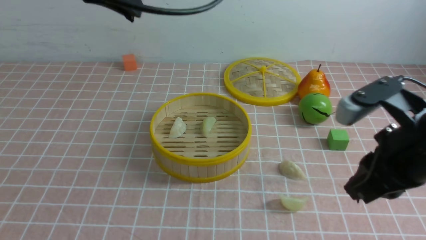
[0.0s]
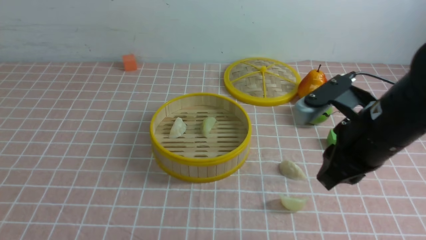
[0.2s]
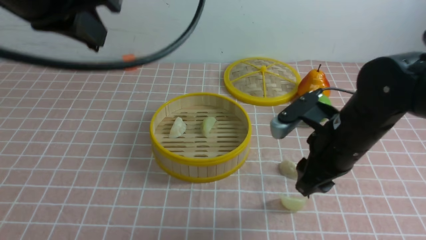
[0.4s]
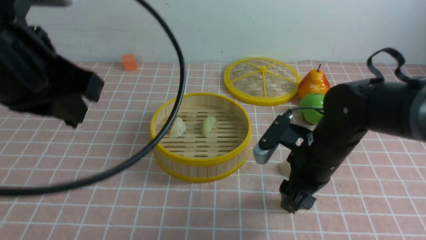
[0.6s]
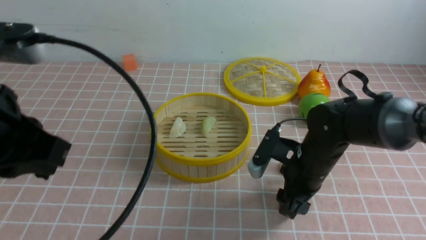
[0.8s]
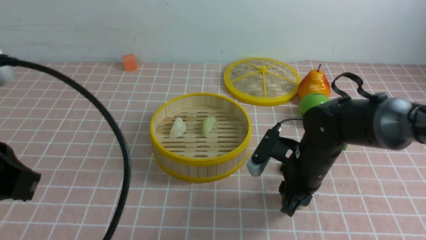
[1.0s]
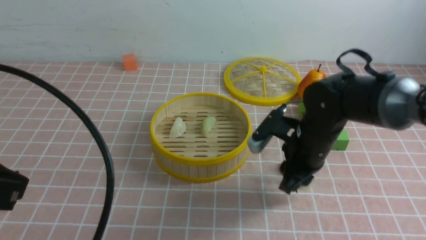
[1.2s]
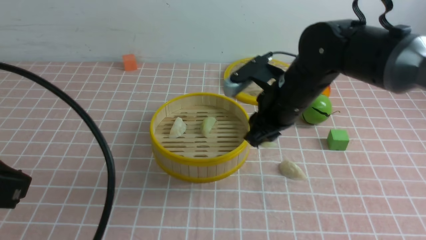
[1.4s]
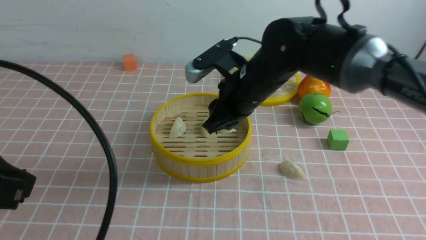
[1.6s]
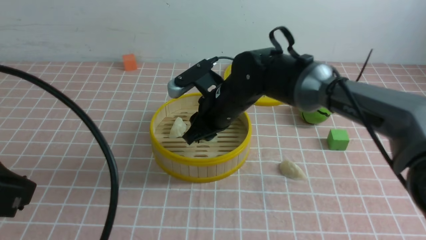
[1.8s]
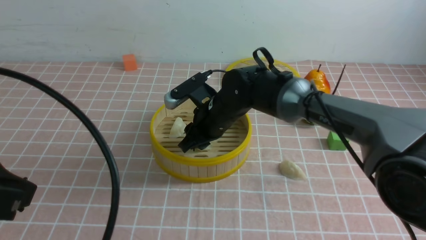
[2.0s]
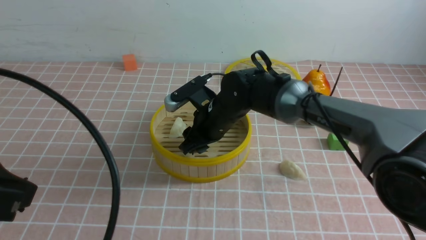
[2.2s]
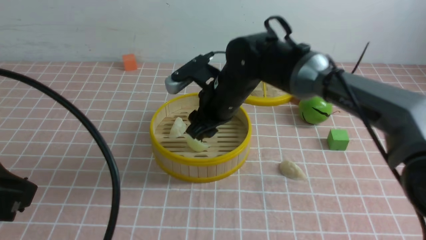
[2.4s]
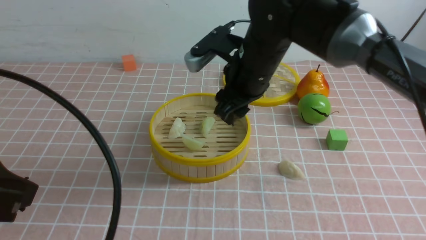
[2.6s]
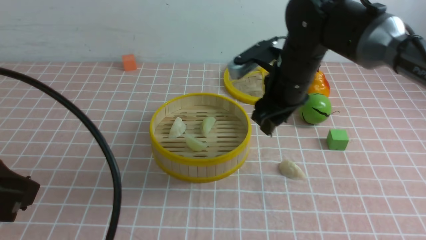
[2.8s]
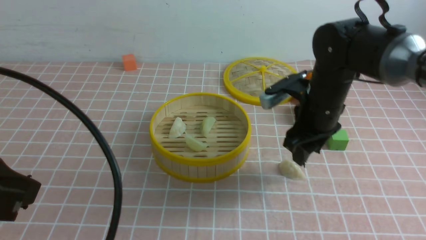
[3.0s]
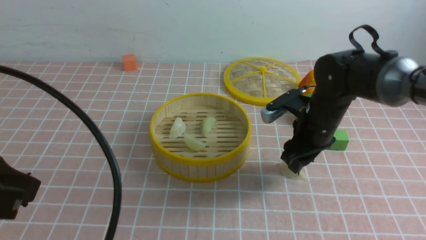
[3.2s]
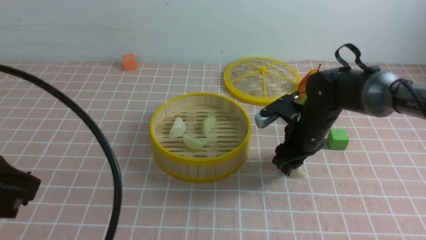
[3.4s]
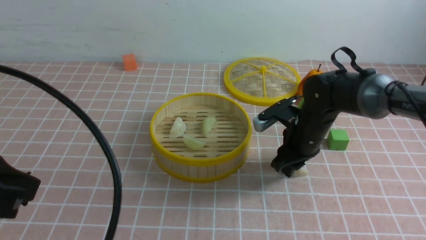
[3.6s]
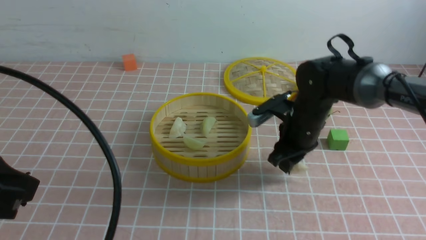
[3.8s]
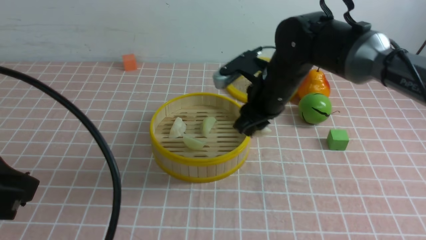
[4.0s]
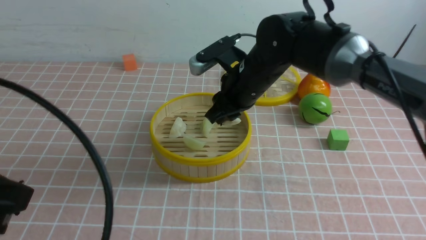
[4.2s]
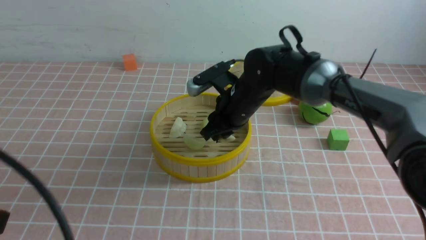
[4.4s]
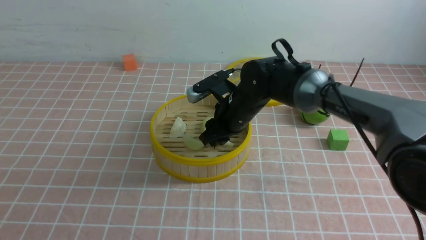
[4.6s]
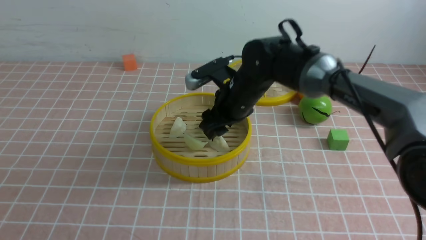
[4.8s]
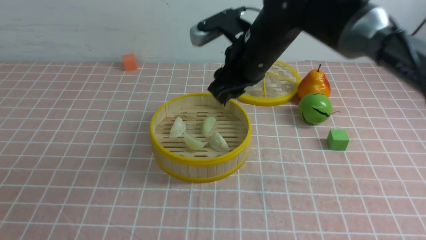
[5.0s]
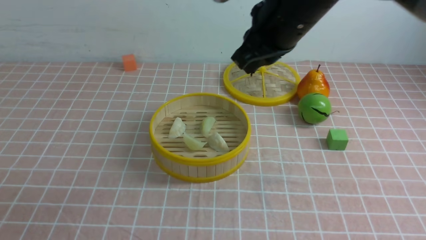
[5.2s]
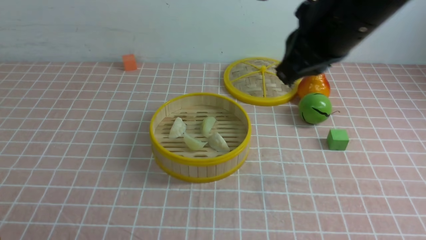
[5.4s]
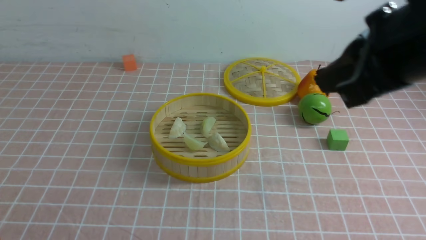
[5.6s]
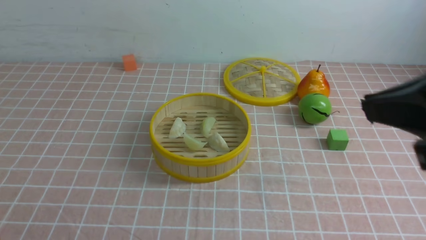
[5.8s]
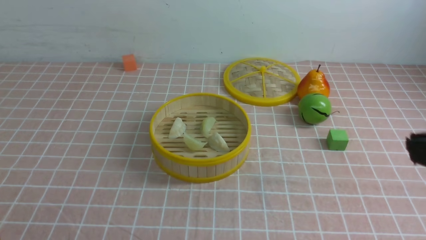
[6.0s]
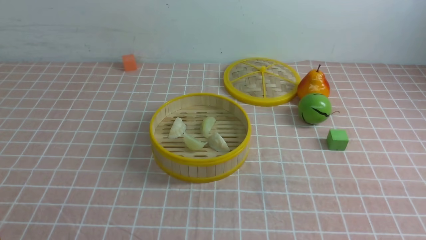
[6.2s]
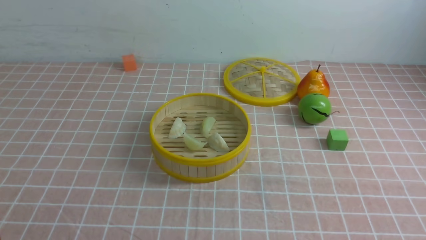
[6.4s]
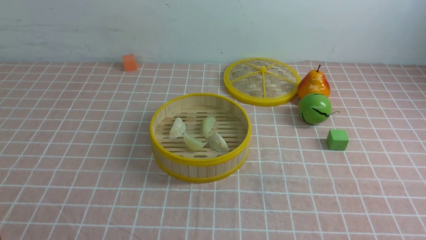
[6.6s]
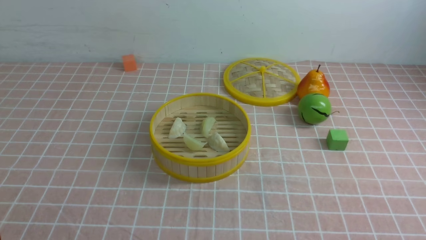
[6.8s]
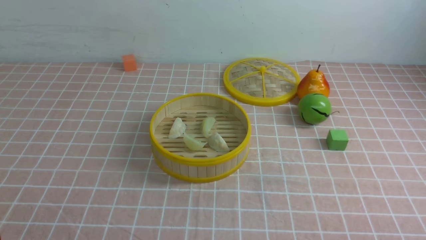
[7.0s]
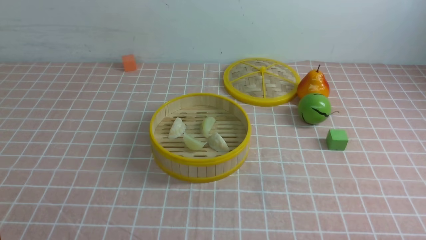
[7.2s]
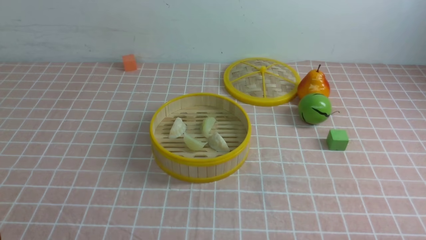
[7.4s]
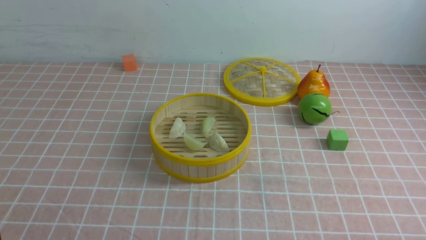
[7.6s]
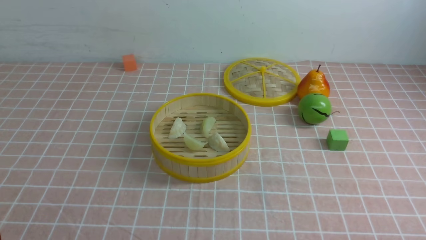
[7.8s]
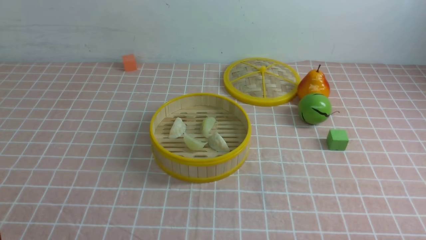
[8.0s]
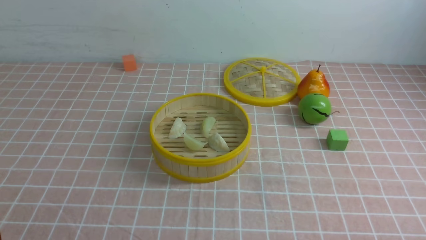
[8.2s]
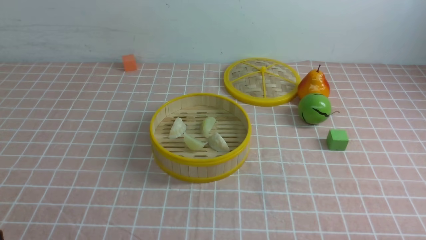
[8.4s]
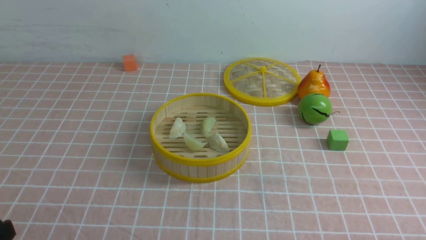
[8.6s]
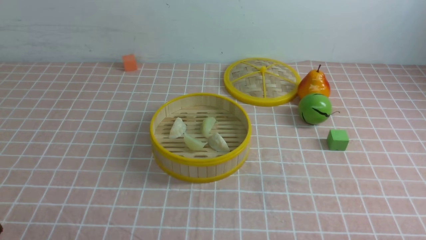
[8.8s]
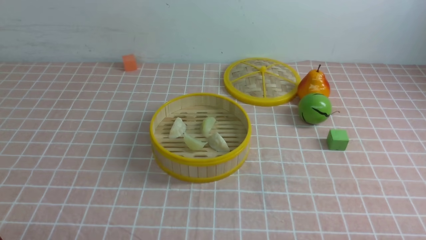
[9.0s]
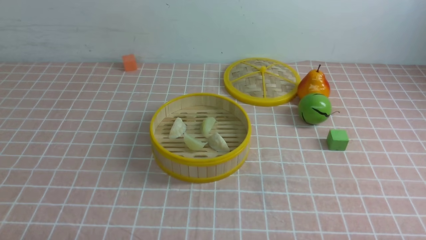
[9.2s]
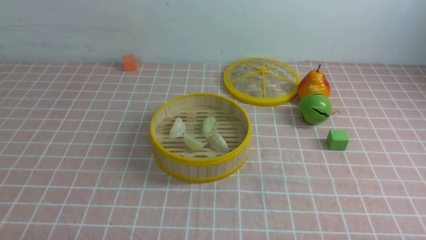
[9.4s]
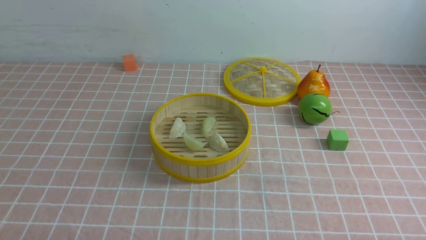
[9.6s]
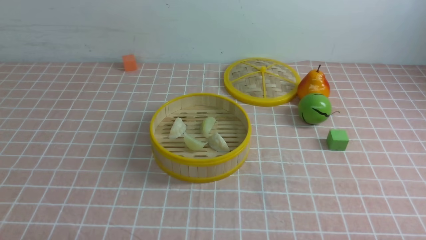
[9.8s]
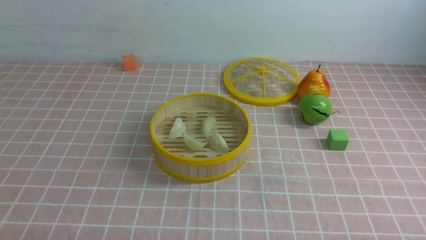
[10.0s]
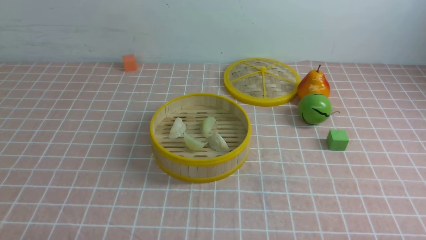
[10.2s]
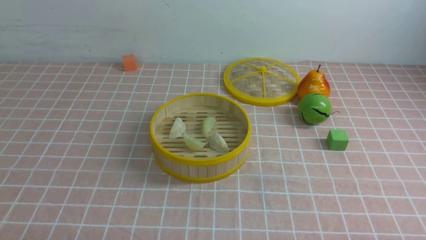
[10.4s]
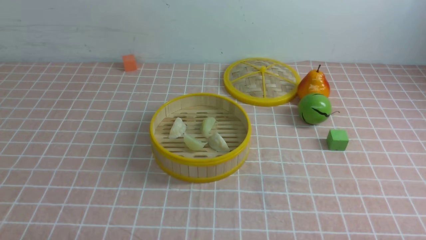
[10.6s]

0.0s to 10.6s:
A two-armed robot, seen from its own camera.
Task of the whole recording: put the dumplings into the steamer on the table with the pink tablecloth.
Step, 0.0s to 1.2s: use the right arm to grab a dumpling.
Step, 1.4s to 2.4s: use the right arm to put the dumpling into the steamer.
Step, 2.6s to 3.8s: use the right arm to grab a dumpling.
Step, 4.0s to 5.2s: use the right arm to put the dumpling into the steamer.
0.0s to 1.6s: The right gripper goes approximately 25 cm forward and to the left, and opens, then closes once more, while the left gripper goes about 25 cm backward.
1.6s to 3.0s: The right gripper moves to the right, roughly 5 cm, and opens its fingers.
3.0s to 4.6s: The left gripper shifts about 5 cm backward. The right gripper heads to the left, covering approximately 10 cm.
4.6s to 6.0s: The left gripper shifts some 5 cm downward. Meanwhile the right gripper shifts about 40 cm backward, upward and to the right, and closes.

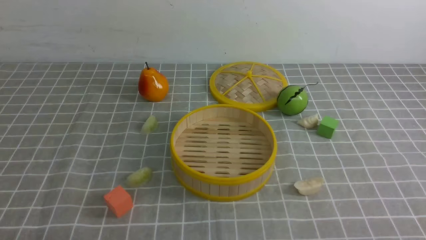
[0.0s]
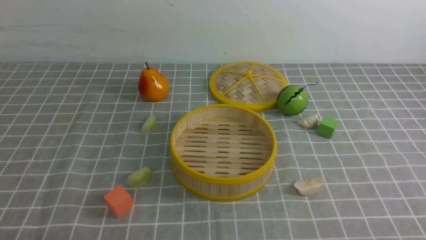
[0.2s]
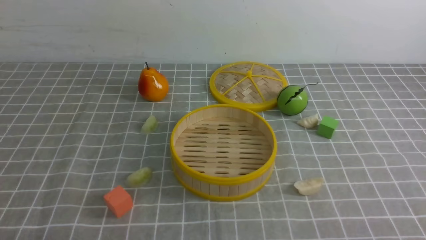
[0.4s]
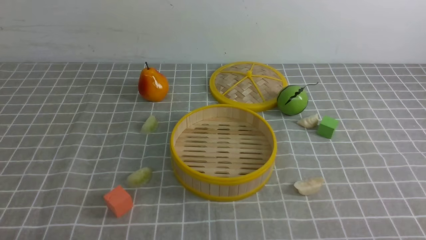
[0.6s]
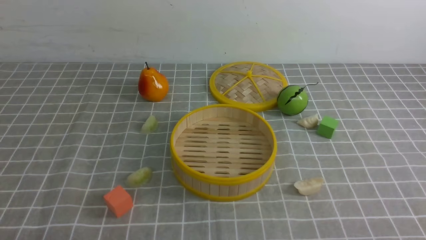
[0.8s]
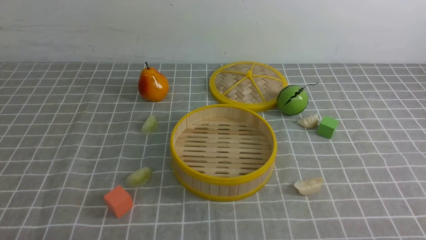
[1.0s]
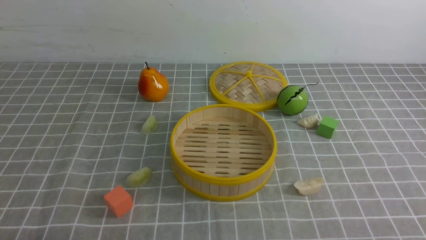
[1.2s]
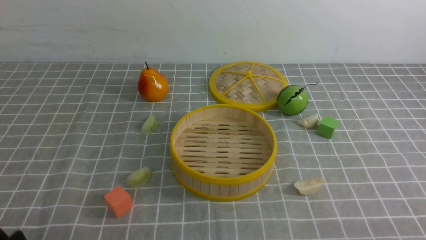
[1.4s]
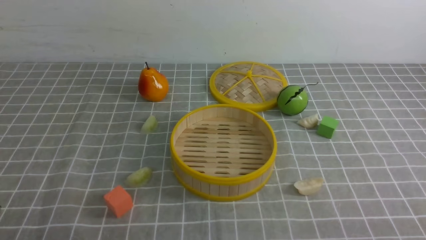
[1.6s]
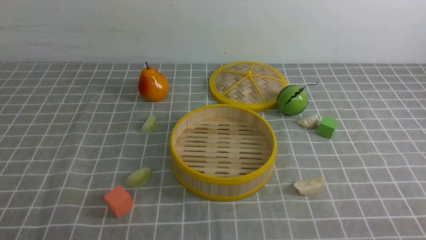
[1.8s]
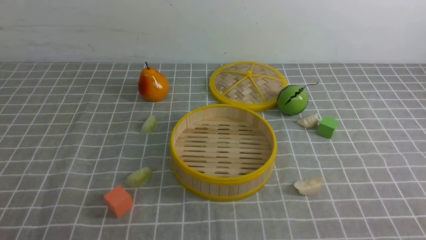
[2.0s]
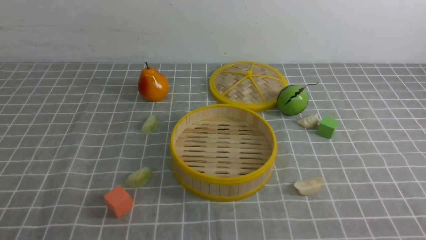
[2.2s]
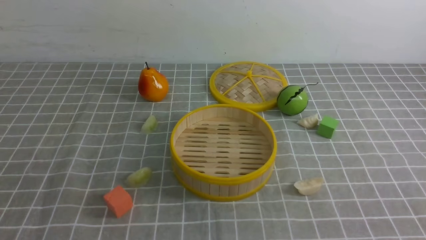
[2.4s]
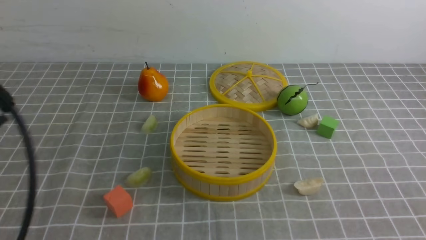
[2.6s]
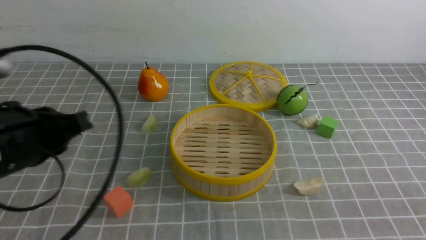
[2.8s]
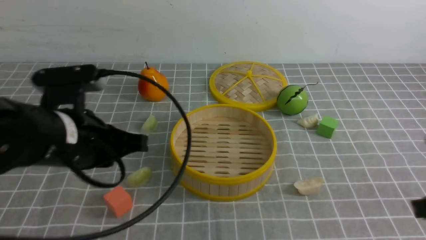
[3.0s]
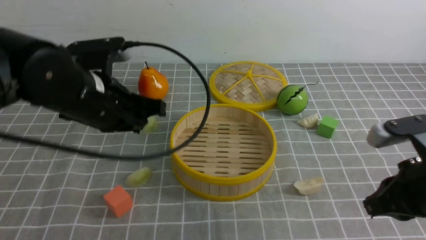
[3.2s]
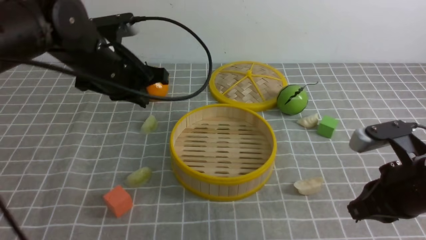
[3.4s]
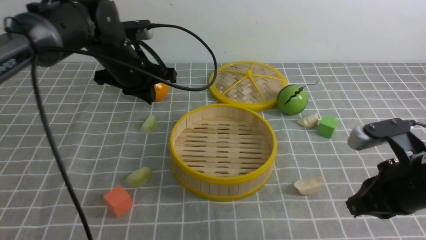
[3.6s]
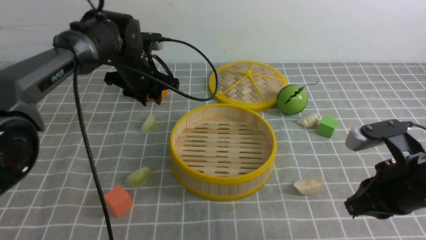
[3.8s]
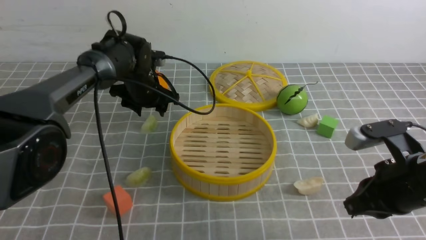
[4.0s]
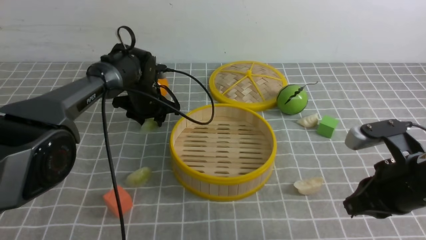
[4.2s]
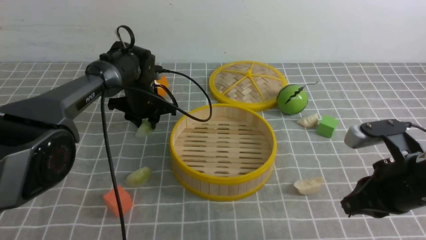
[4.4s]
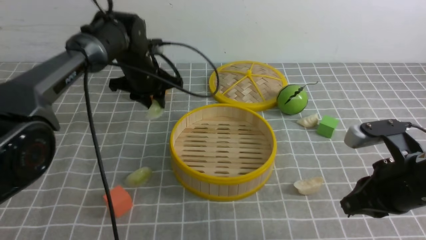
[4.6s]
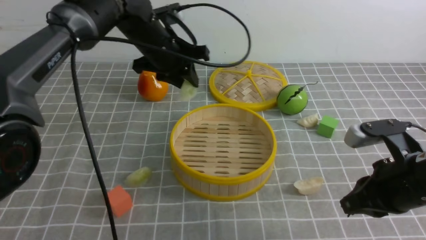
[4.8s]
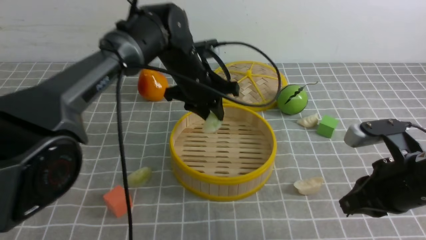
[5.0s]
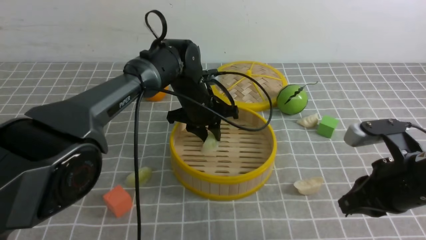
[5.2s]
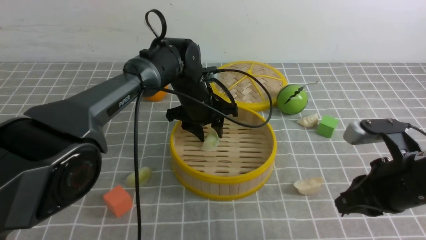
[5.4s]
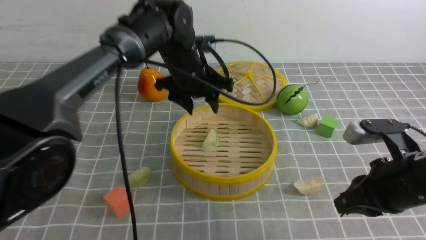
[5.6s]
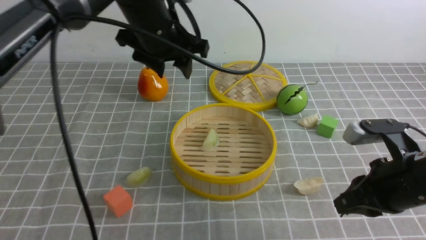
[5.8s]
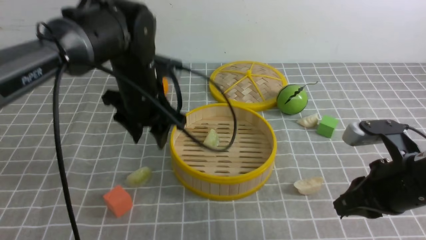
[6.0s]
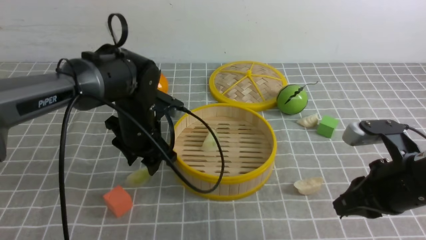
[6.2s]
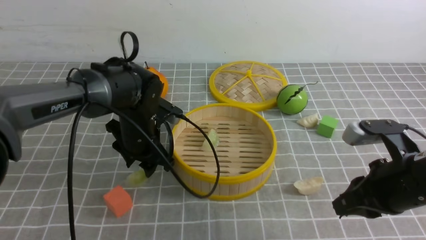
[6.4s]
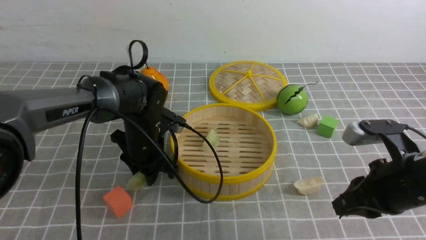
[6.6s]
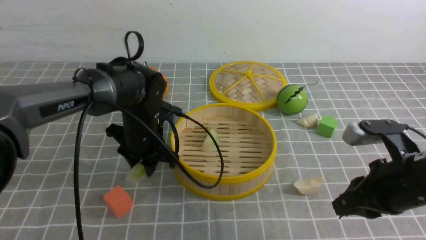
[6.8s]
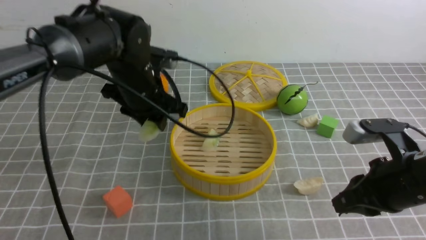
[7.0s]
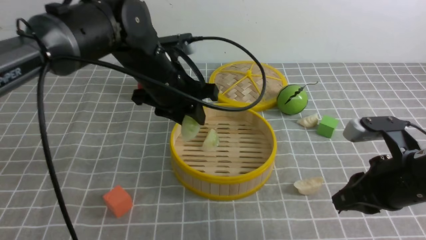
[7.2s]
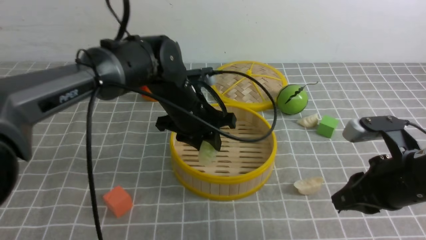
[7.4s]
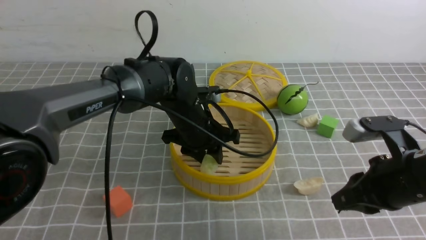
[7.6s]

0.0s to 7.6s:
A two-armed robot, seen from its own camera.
Task of the whole recording: put the dumplings into the steamer on the table with the grey tablecloth.
Step, 0.0s to 4.4s: use the left arm to grab a dumpling.
Step, 4.6s to 5.4s: use the left arm to put the dumpling into the steamer.
Step, 5.6s to 6.8s: use the left arm to grab a dumpling.
1.6s to 3.0s: The left gripper goes about 25 cm forward, upward and to the right, and closes. Meanwhile the right gripper goes roughly 15 cm forward and upward, and closes its fingers.
3.0s to 4.6s: The right gripper shifts about 5 cm forward and to the left, while the left gripper heads forward, covering some 25 cm, and opens up.
4.6s to 6.0s: The left gripper is displaced backward by some 10 cm, moves some 5 cm upward and comes back, and opens.
6.0s to 7.6s: The left gripper swings up and down, about 10 cm each way, with 2 reversals.
